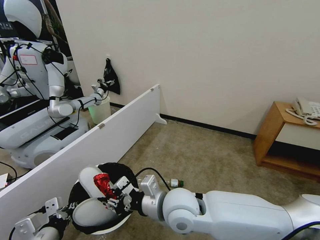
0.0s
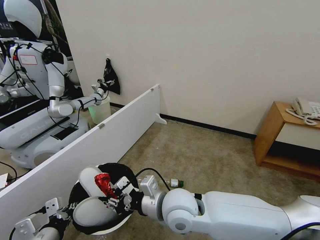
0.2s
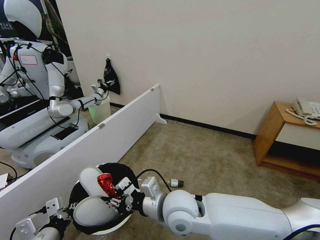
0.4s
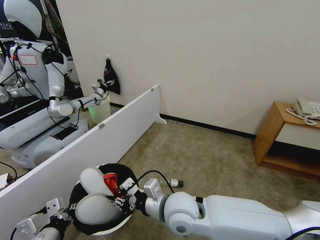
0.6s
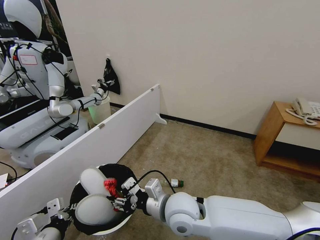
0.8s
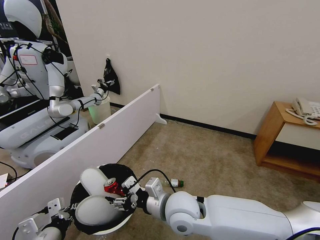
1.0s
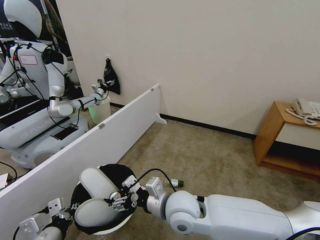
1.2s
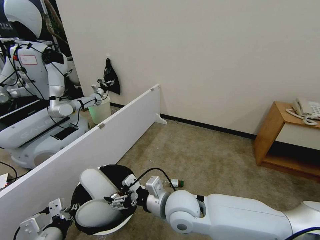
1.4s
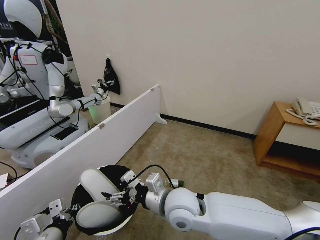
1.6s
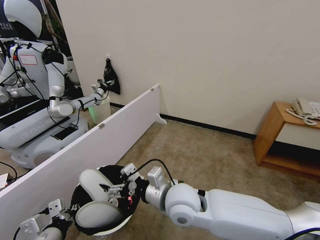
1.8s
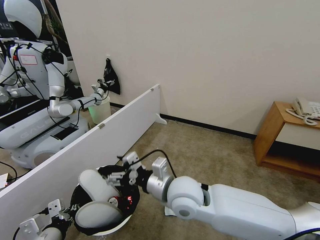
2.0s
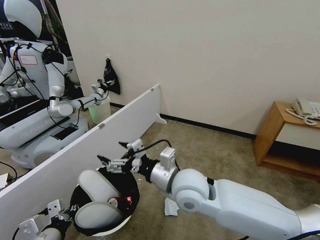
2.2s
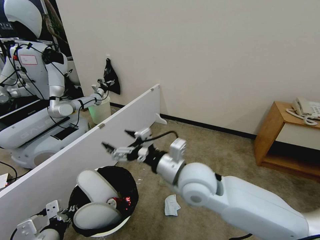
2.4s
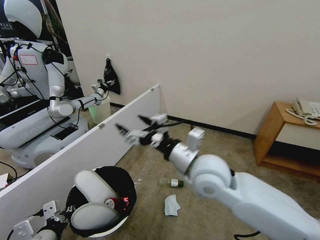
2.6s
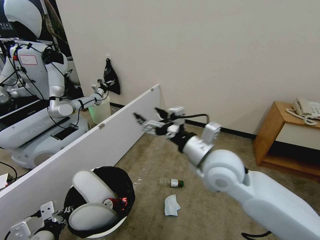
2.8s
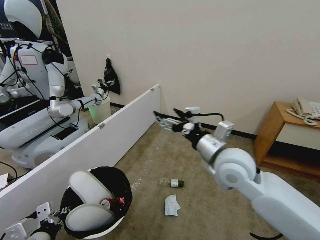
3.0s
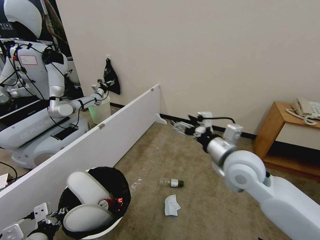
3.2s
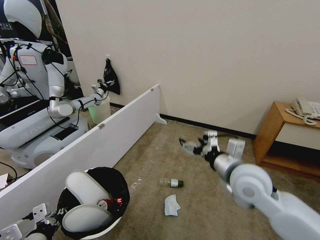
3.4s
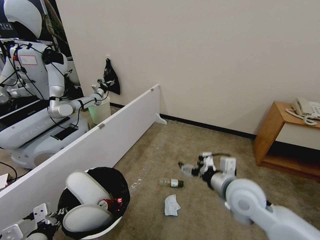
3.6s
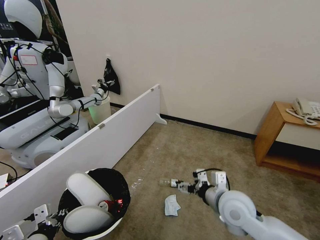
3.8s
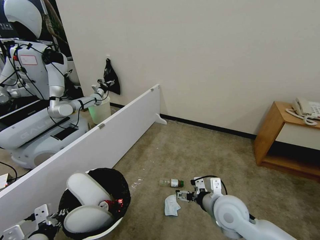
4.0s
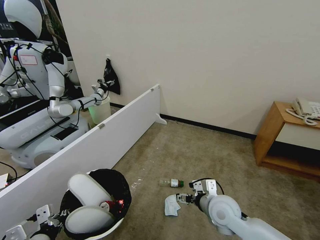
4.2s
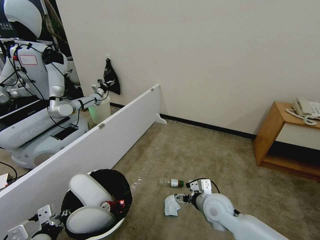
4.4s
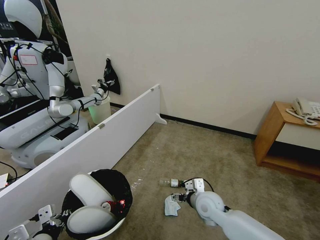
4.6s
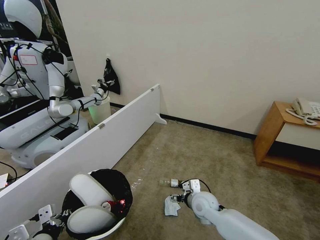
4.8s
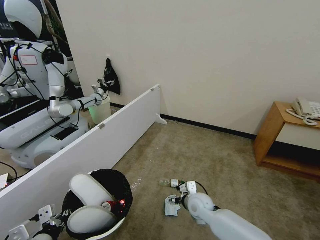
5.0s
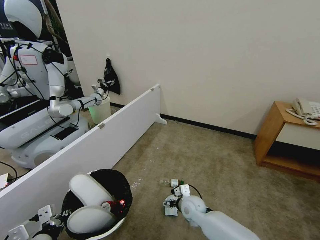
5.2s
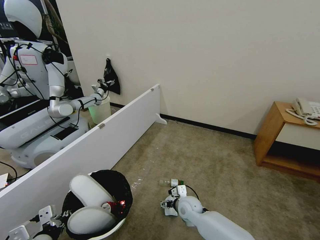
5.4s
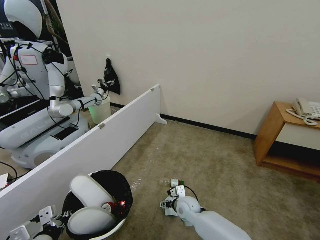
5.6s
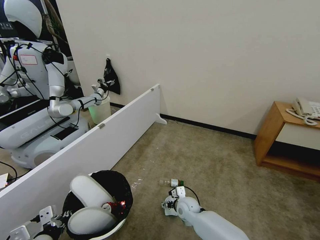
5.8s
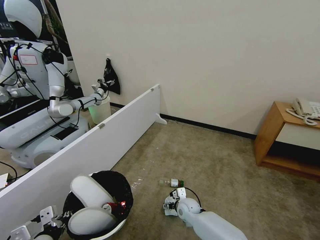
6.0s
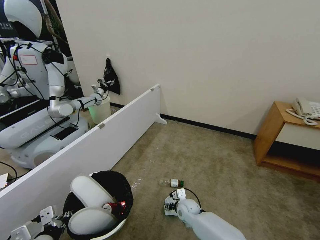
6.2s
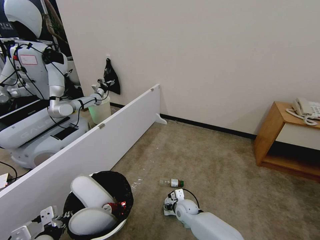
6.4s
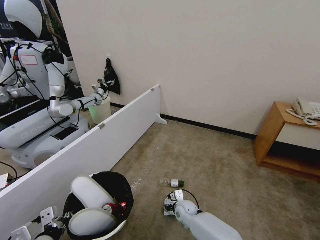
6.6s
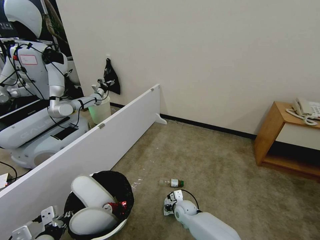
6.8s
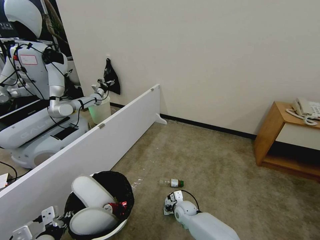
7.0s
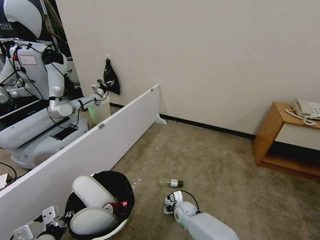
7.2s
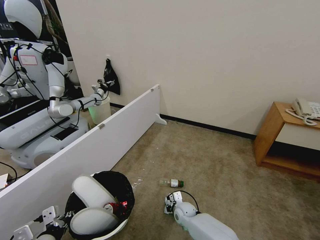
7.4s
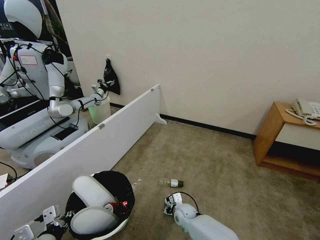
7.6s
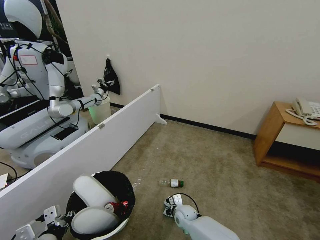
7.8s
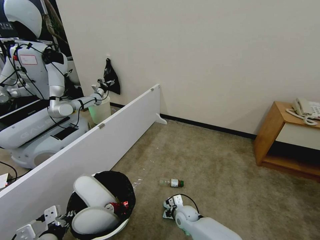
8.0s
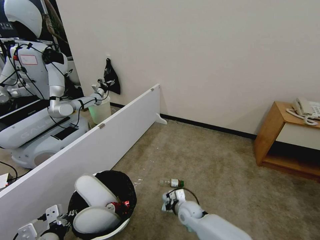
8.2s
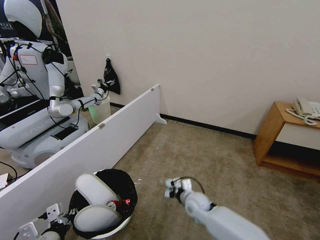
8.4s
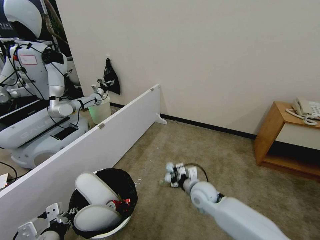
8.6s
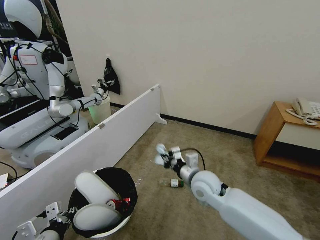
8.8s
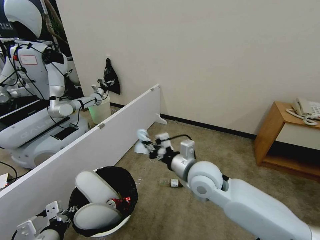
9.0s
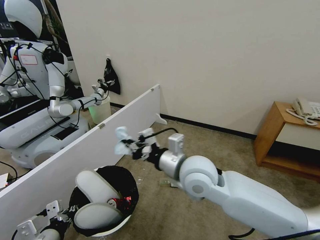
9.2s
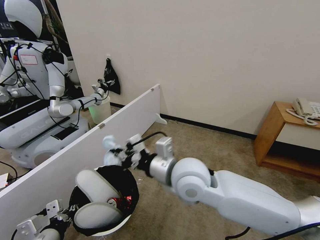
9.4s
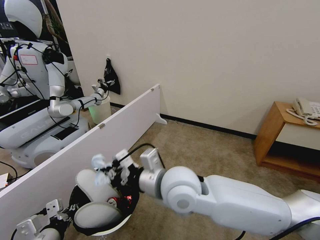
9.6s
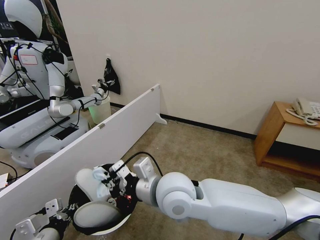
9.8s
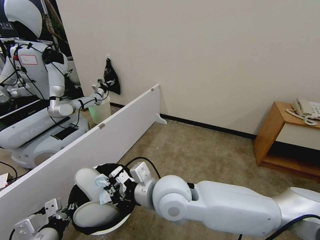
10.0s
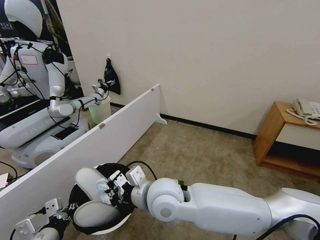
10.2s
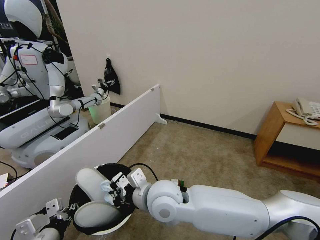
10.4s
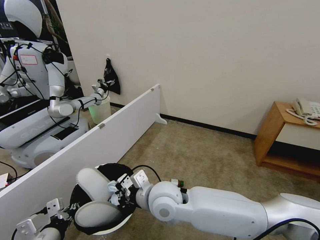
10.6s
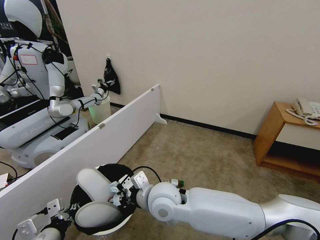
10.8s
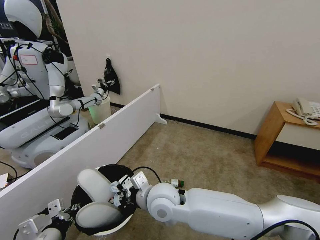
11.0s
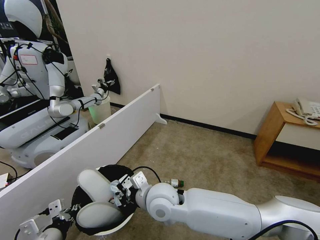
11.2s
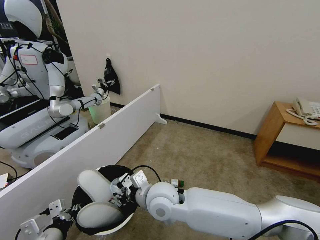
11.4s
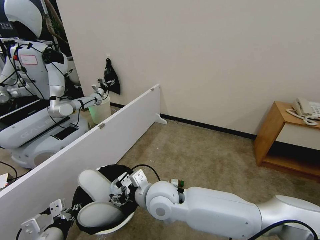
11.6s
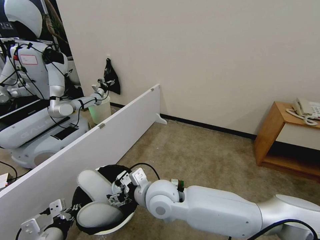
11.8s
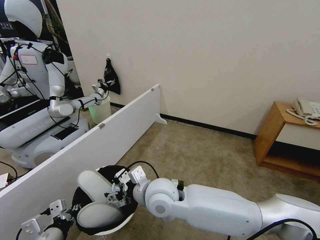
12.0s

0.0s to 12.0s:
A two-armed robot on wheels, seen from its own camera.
Task of the whole recording: Pick up the trash bin and place the garbage on the floor into it.
0.0s to 1.6s: The right gripper opens.
1.6s to 3.0s: The right gripper travels to the right and upward by roughly 15 cm.
3.0s to 4.4s: The right gripper travels downward by roughly 20 cm.
4.4s to 6.0s: The right gripper goes some 20 cm downward, forward and to the left.
6.0s to 7.6s: The right gripper closes its fingers.
7.6s to 9.0s: The right gripper goes some 35 cm upward.
9.0s to 10.4s: The right gripper travels to the left and backward by about 15 cm.
10.4s to 12.0s: The right gripper opens.

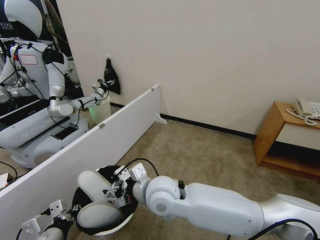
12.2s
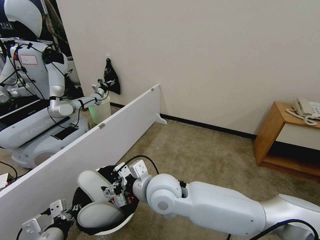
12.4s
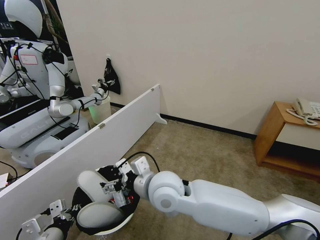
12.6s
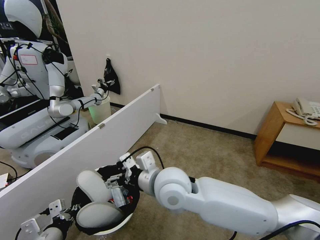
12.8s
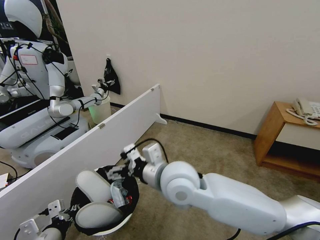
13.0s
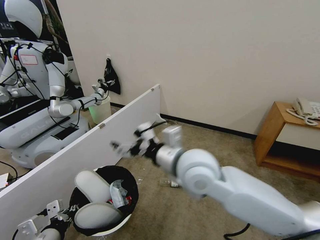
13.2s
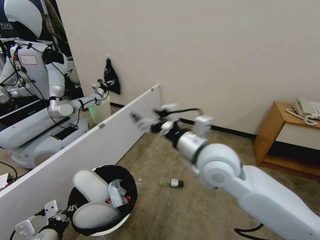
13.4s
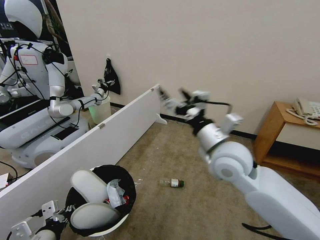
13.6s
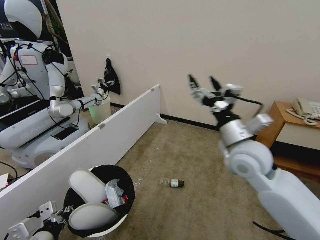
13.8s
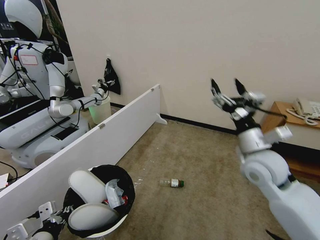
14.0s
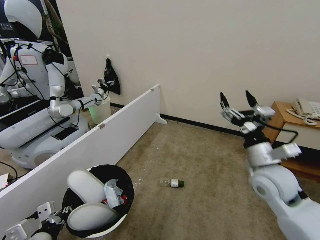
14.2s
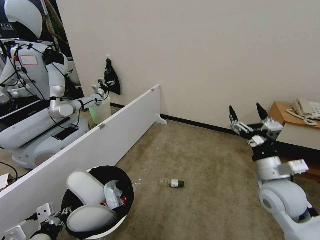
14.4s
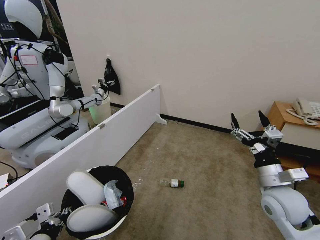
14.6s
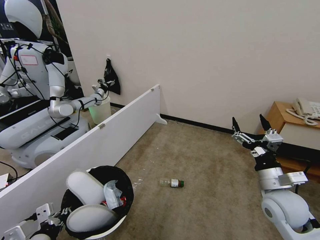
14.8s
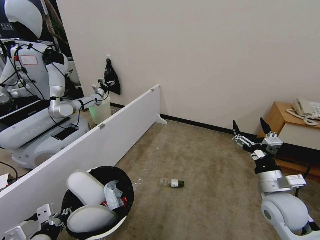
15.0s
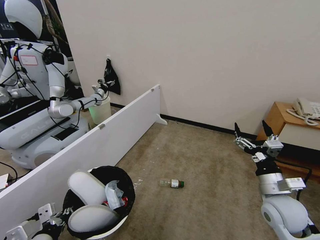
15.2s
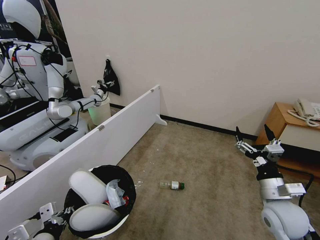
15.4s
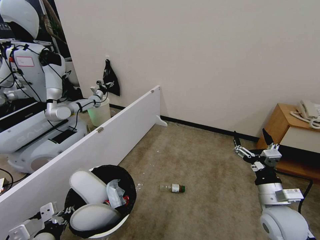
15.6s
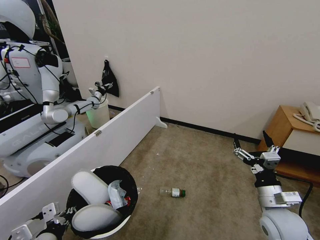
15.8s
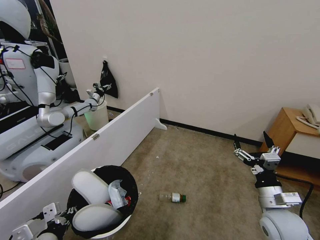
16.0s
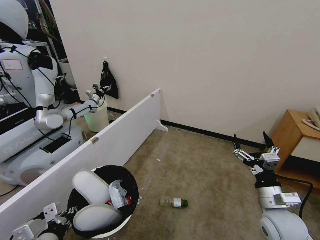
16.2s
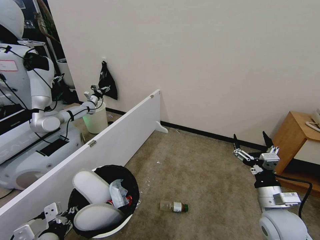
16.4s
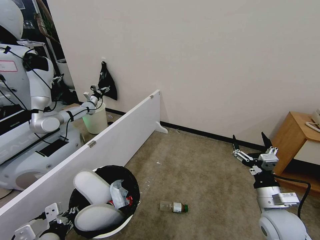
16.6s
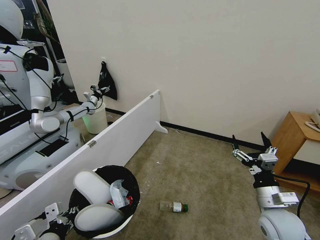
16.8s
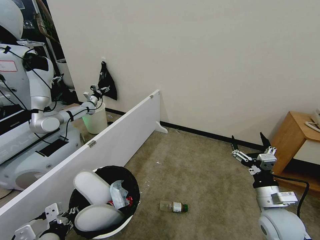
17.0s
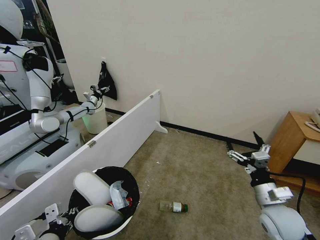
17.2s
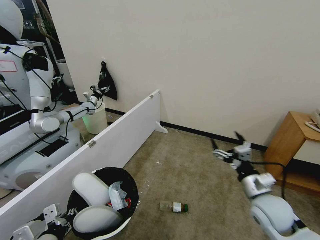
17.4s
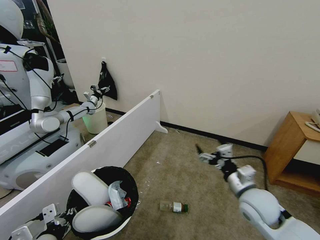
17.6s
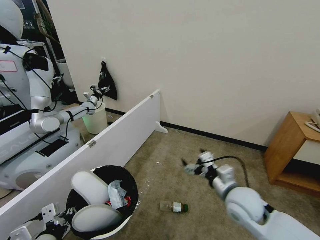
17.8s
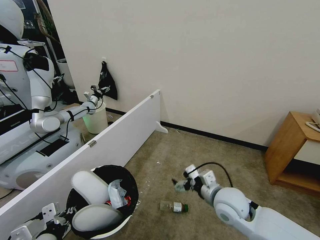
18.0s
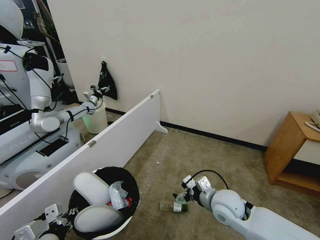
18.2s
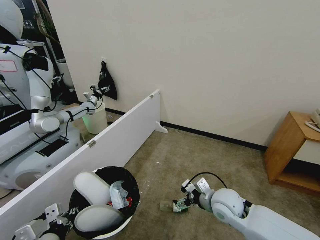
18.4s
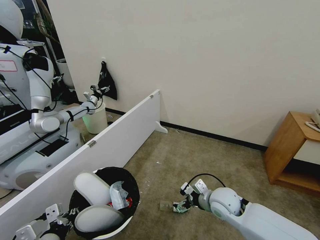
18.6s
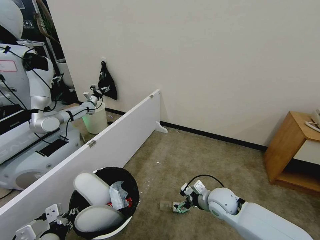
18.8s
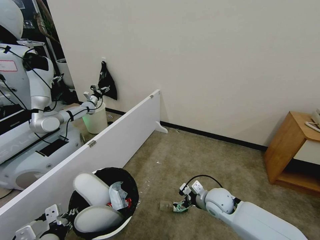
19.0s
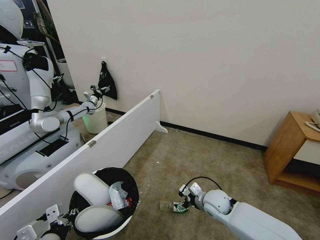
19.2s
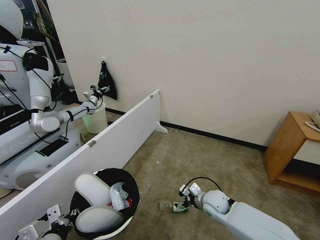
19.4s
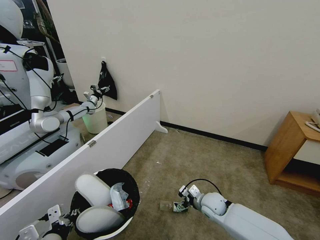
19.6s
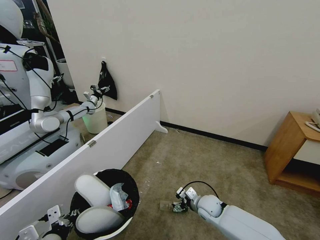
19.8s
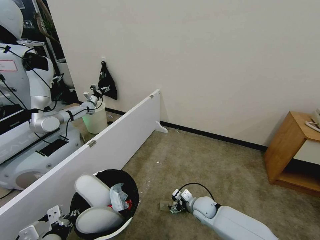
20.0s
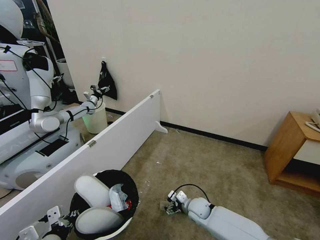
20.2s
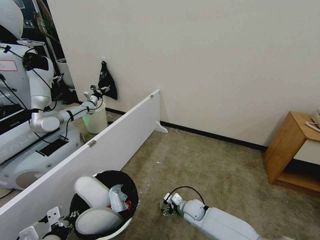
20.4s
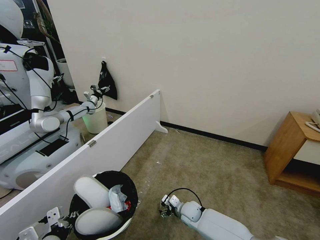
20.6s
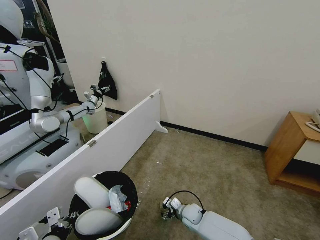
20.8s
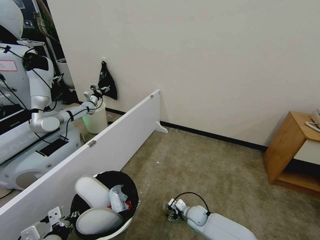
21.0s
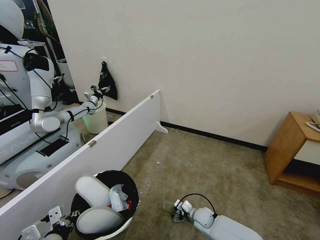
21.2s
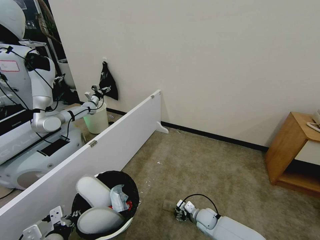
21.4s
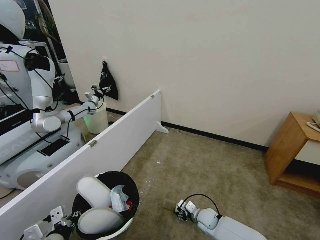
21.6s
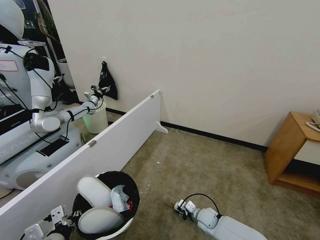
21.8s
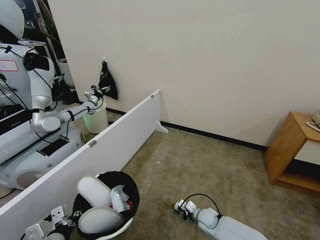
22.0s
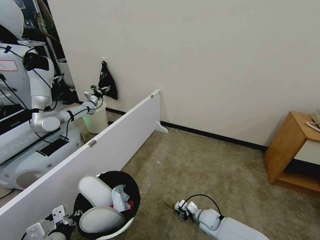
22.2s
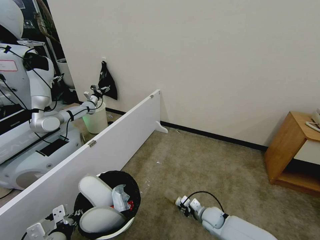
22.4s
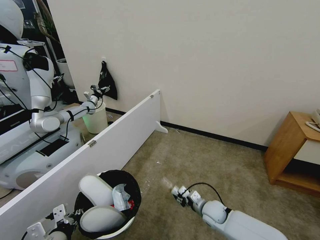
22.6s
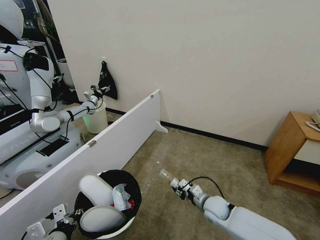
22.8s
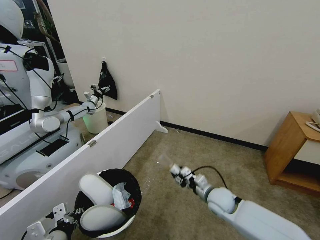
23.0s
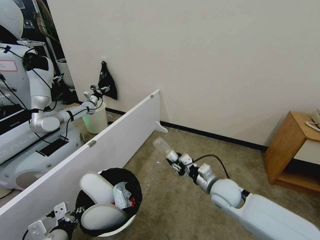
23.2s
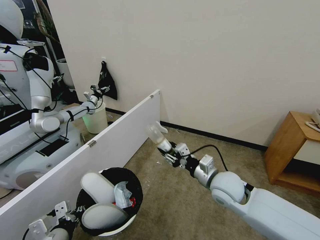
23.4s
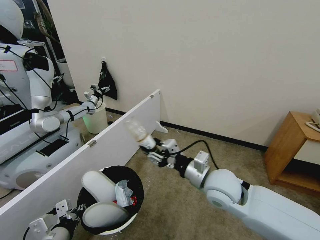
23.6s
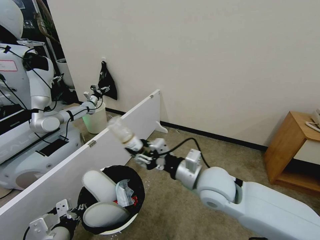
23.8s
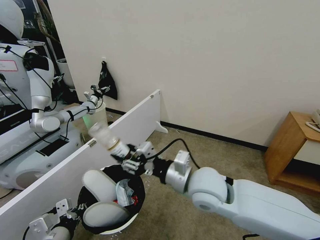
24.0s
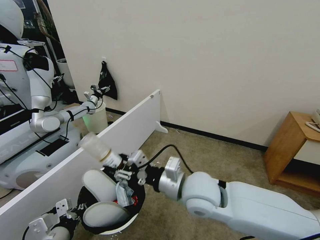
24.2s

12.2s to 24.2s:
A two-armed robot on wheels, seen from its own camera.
Task of the whole recording: Pick up the trash bin and place the garbage on the floor into it.
12.2s to 13.8s: The right gripper shifts about 25 cm to the right and upward.
13.8s to 15.2s: The right gripper moves downward, to the right and backward, approximately 20 cm.
16.6s to 18.2s: The right gripper shifts some 15 cm to the left and forward.
18.2s to 19.8s: The right gripper moves downward and forward, roughly 15 cm.
19.8s to 21.2s: The right gripper travels downward by about 10 cm.
21.2s to 22.6s: The right gripper is displaced upward by some 5 cm, and closes.
22.6s to 24.2s: The right gripper heads upward and to the left, covering approximately 30 cm.
